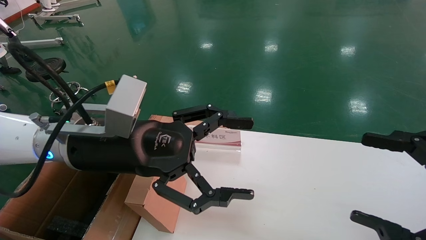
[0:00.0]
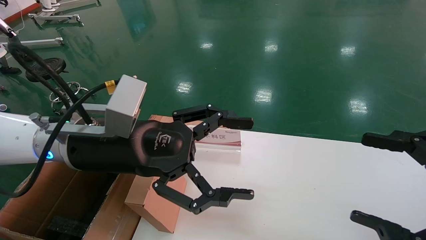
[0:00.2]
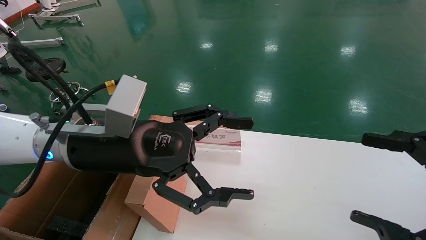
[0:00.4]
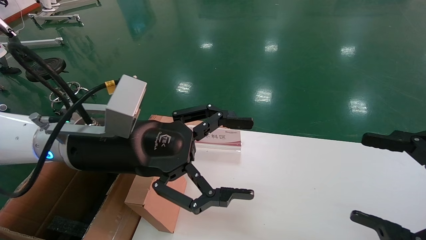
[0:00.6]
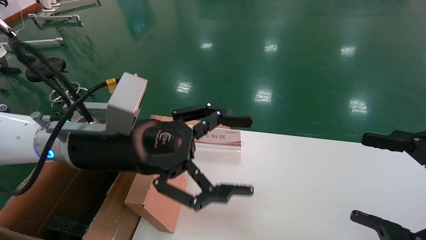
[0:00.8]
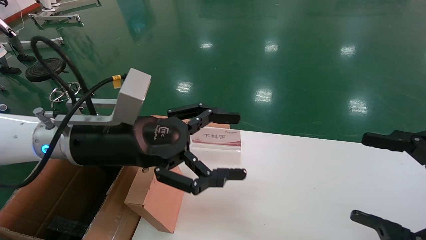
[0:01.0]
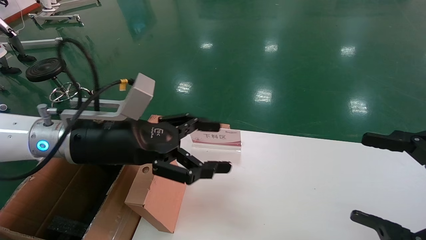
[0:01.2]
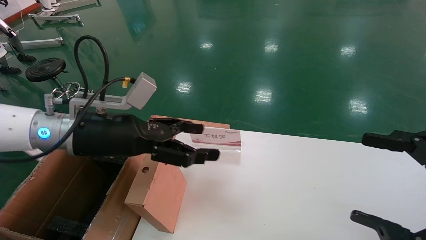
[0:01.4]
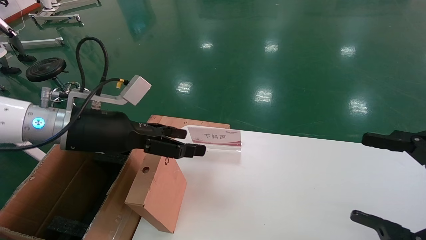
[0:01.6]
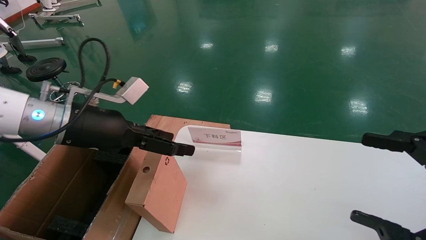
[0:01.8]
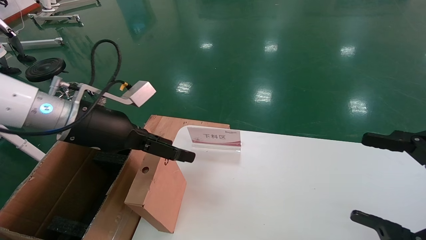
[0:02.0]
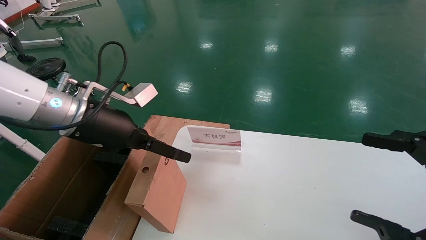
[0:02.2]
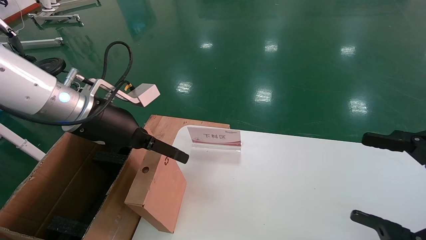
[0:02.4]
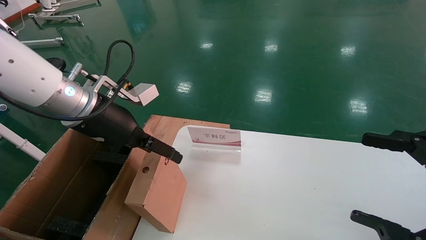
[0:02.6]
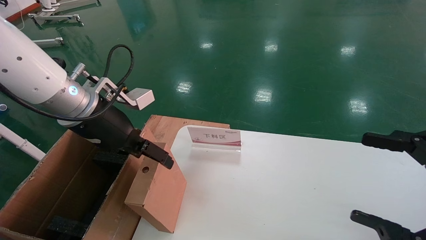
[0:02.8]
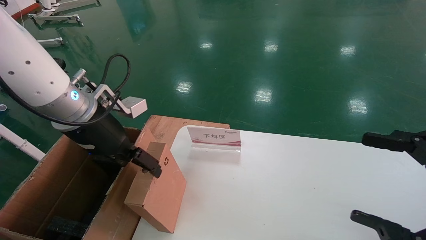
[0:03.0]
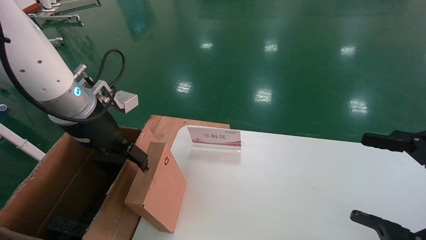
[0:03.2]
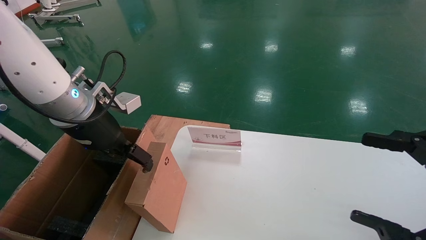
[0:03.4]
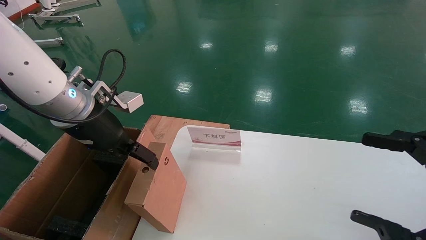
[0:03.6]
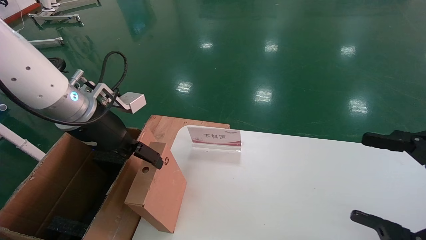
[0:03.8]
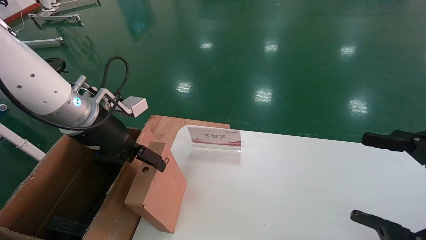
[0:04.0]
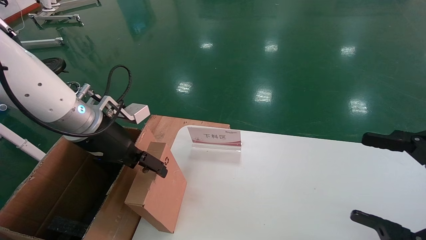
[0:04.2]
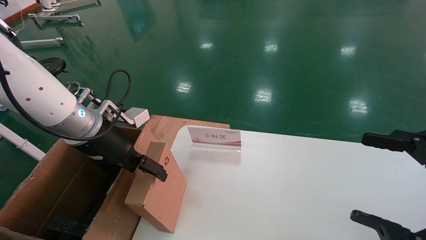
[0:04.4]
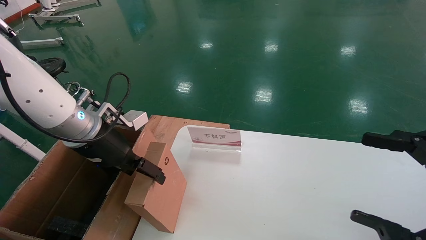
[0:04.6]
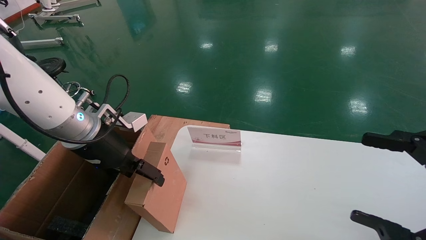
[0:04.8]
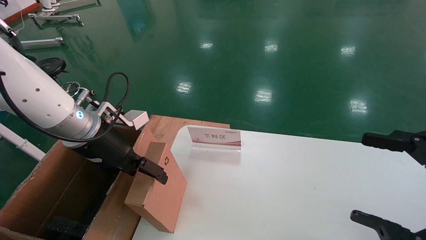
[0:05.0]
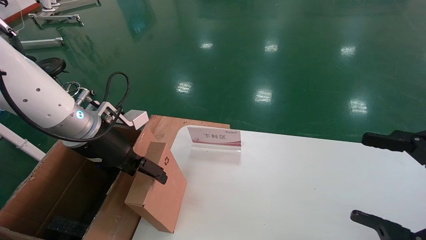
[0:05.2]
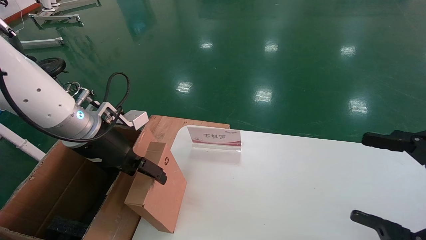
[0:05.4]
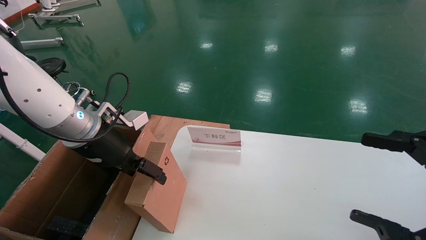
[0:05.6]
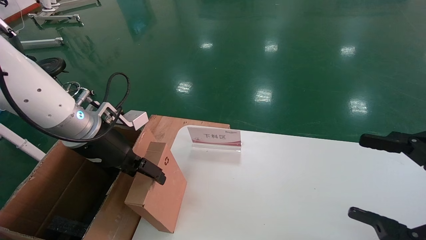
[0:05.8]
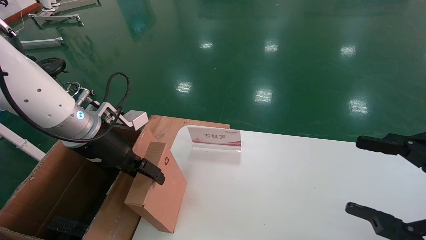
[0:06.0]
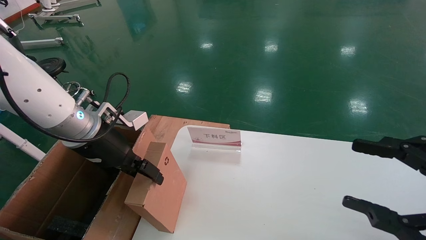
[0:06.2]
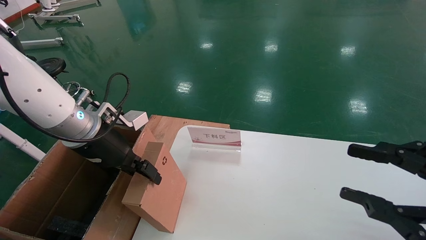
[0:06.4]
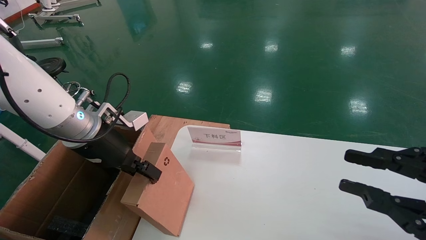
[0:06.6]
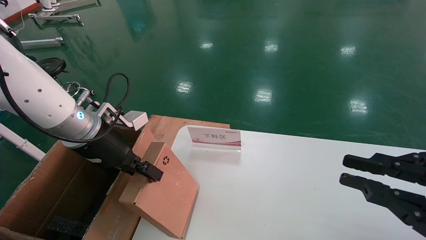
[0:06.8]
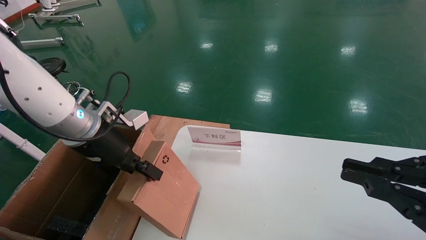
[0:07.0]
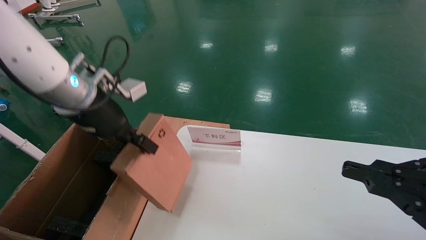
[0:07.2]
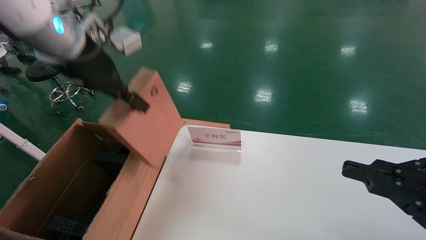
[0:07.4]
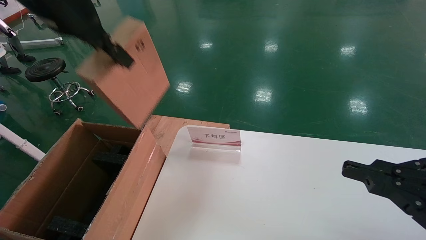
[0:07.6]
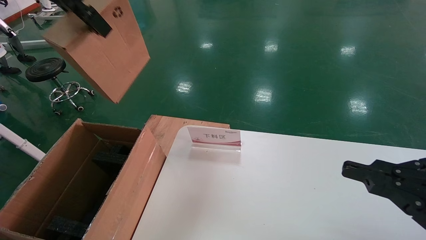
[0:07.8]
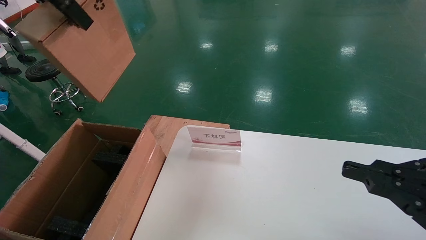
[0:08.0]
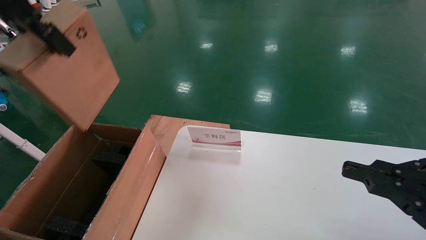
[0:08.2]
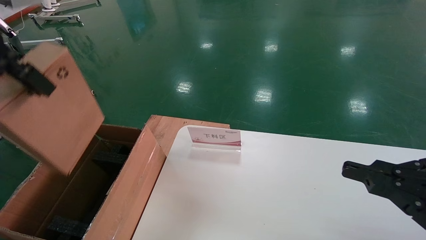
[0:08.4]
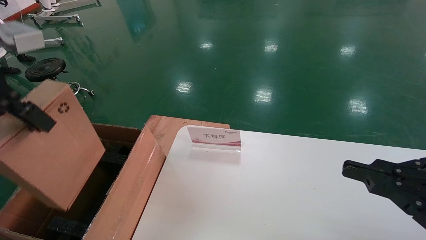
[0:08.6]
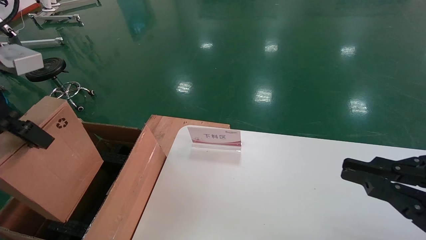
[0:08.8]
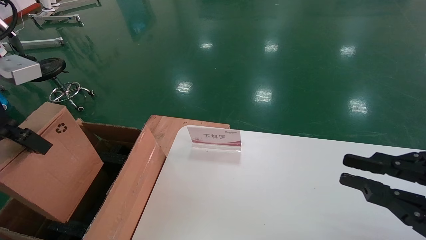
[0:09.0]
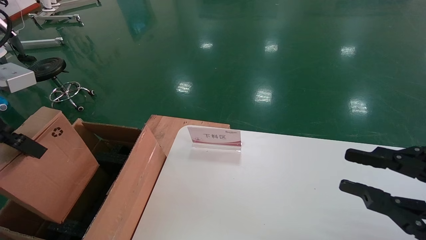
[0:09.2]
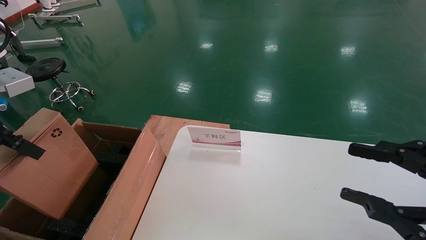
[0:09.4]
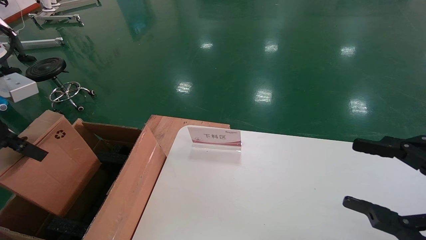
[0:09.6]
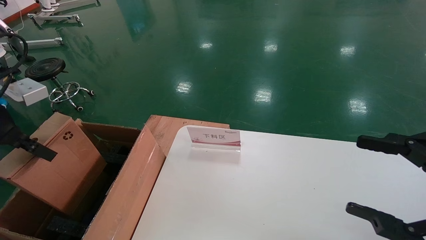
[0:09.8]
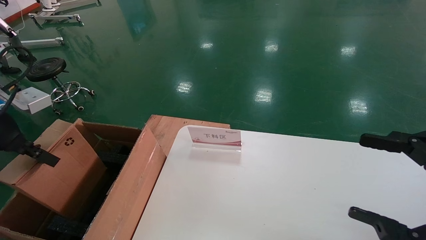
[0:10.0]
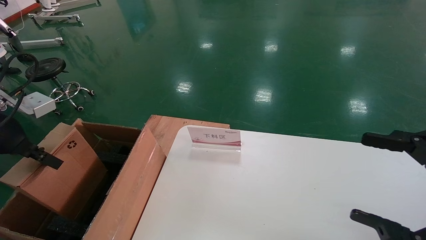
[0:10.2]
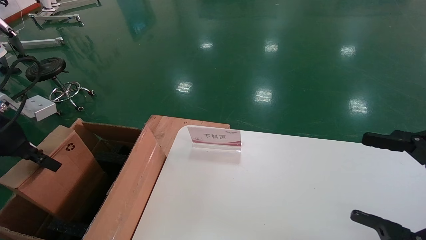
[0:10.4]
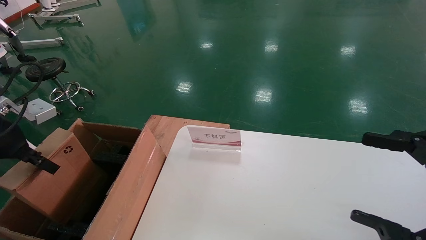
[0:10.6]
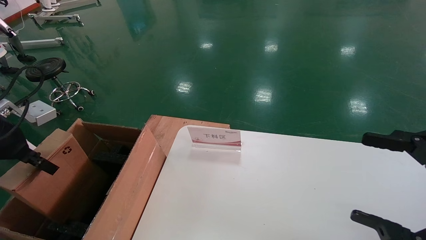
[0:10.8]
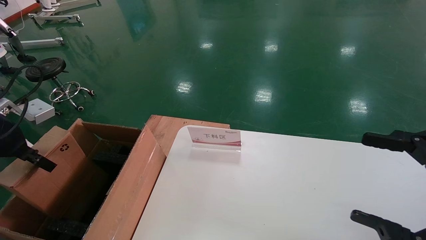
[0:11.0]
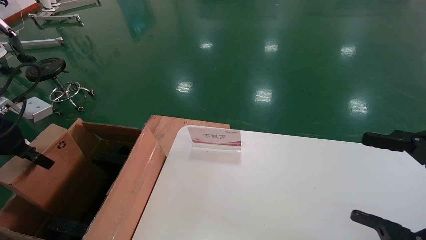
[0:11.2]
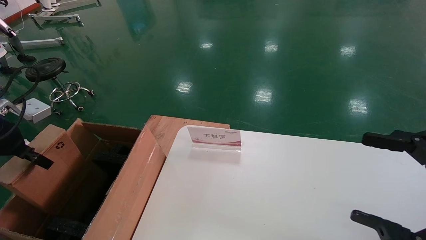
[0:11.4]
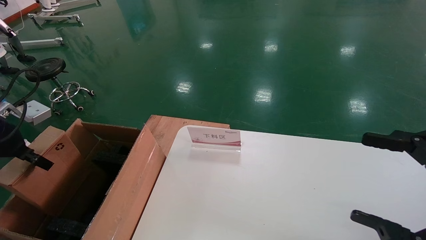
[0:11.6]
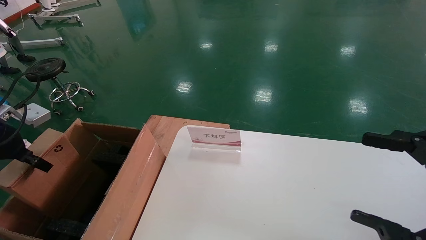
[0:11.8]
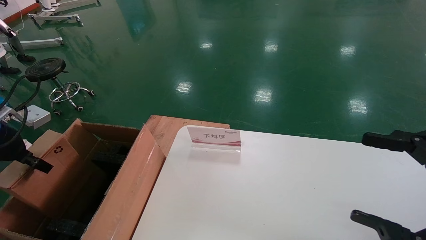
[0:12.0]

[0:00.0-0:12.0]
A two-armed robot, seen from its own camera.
Task of the whole recording: pick up the small cardboard box and load it into the large cardboard box.
Step, 0:01.2 to 0:06.6: Pick up the mouse and power cord box.
0:00.0 to 0:01.6: The left gripper is displaced to the left by approximately 5 cm.
0:03.0 to 0:04.4: There are only small adjustments of the grippers.
0:04.4 to 0:06.0: Neither gripper changes place.
0:06.0 to 0:07.6: The right gripper closes its fingers; the left gripper travels upward by approximately 20 cm, and closes up.
0:07.6 to 0:09.0: The left gripper is displaced backward, to the left and downward by about 15 cm.
0:09.0 to 0:10.4: The left gripper is displaced downward and to the left by about 15 cm, while the right gripper opens.
0:10.4 to 0:12.0: The left gripper ends up some 5 cm from where it was.

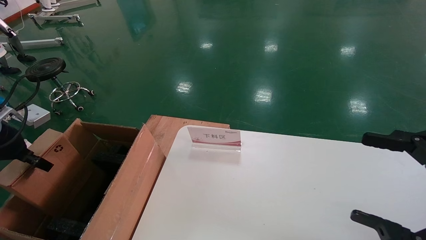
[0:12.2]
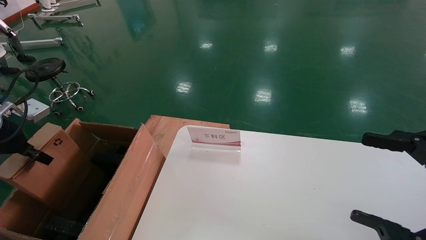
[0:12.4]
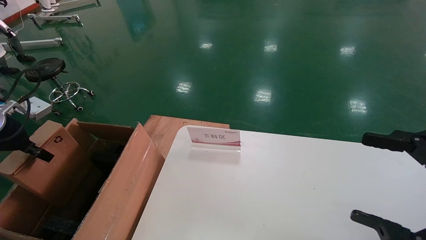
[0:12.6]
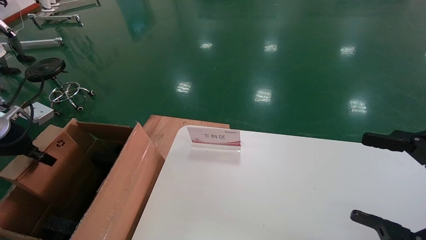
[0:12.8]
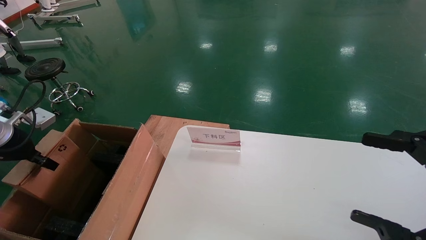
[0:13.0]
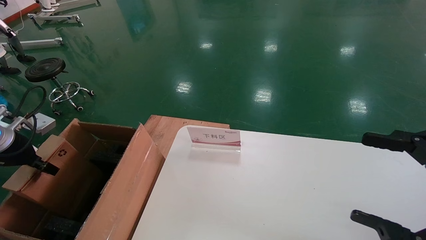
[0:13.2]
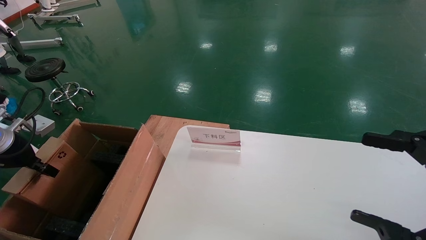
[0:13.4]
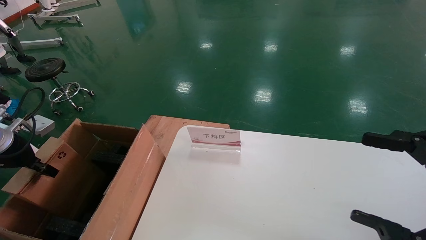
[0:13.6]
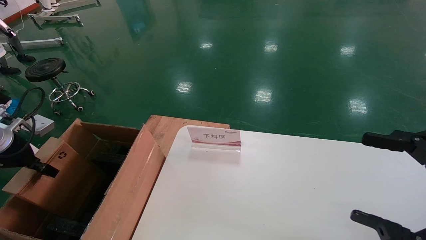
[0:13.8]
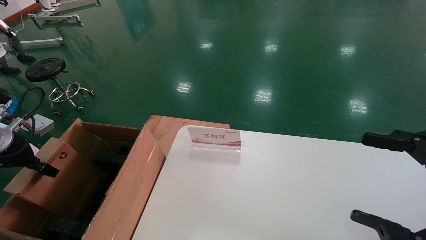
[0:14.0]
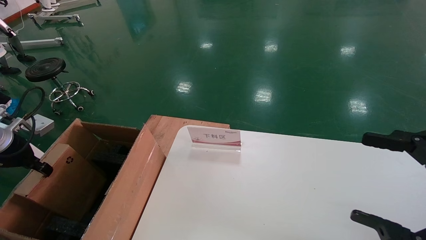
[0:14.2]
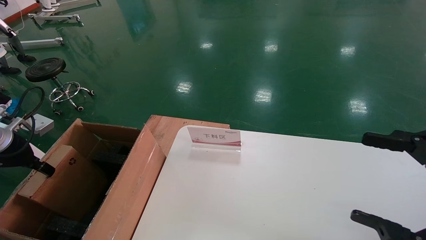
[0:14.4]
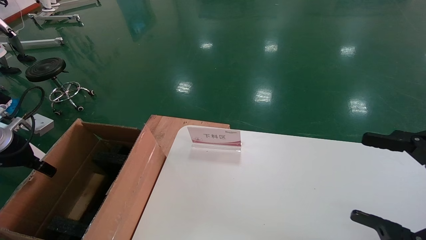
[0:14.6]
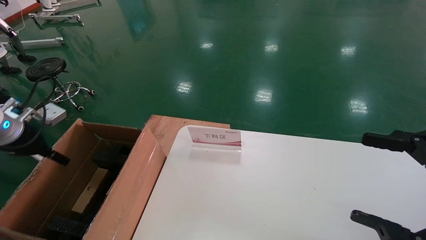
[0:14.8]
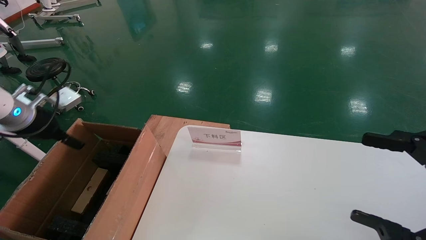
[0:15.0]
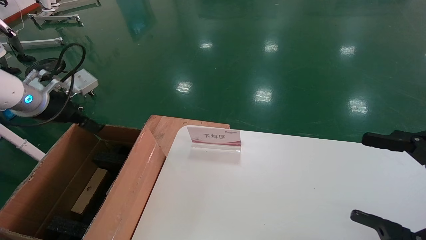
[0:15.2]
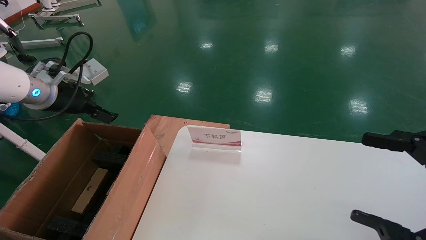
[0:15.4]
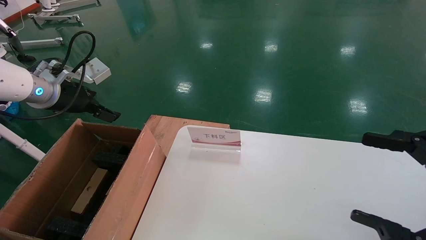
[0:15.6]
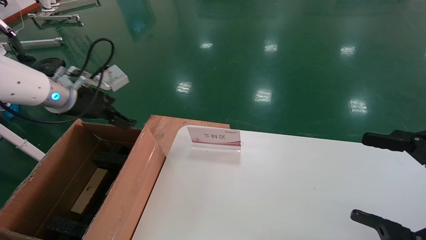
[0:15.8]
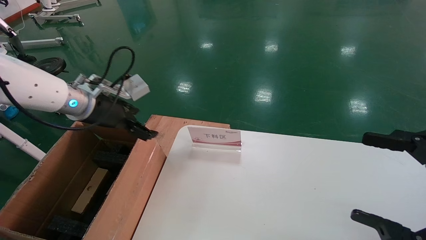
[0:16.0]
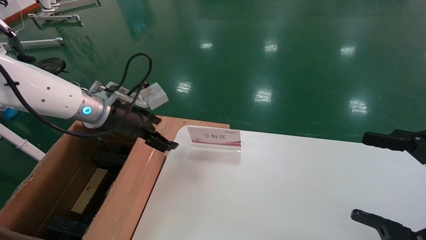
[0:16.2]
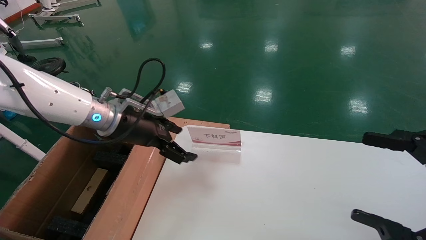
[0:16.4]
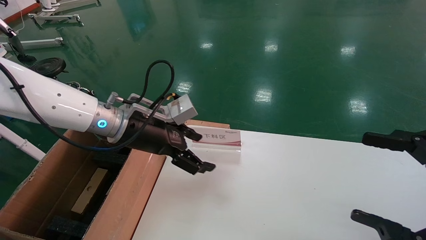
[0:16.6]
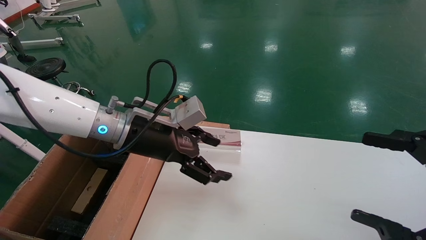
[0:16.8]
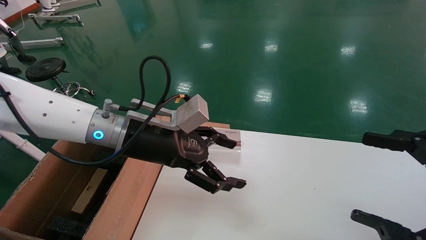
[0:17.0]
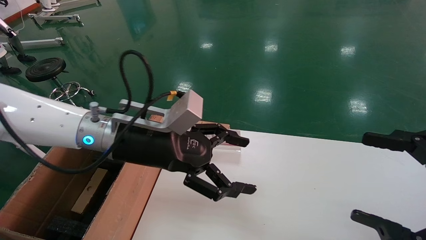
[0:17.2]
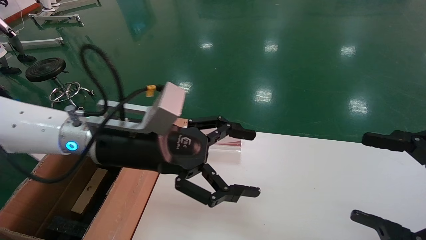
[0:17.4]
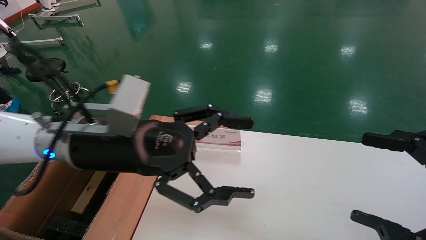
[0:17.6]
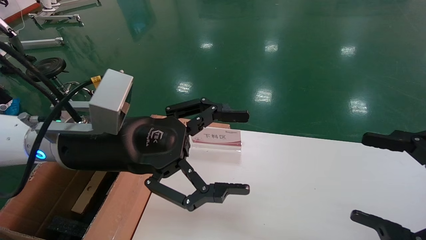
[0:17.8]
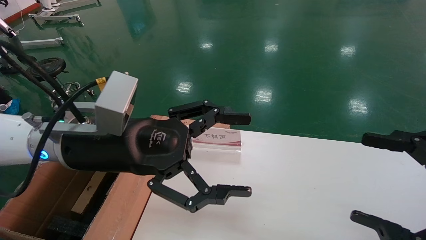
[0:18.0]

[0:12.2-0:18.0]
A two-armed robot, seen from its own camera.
Task of the whole recording: pick up the small cardboard box and load it into the large cardboard box.
Step, 0:12.2 to 0:14.2: Place the mouse and power cord box into the case.
0:12.2 to 0:13.6: The grippers make only small movements.
0:13.6 to 0:15.0: The left gripper travels upward by approximately 5 cm, and opens its fingers.
0:15.0 to 0:16.6: The left gripper moves to the right, roughly 20 cm.
0:16.6 to 0:18.0: The left gripper is displaced backward by some 10 cm.
